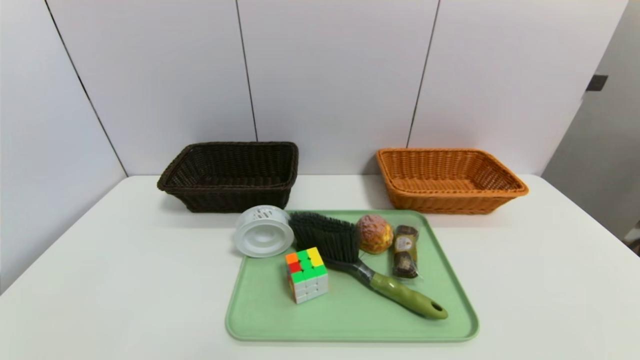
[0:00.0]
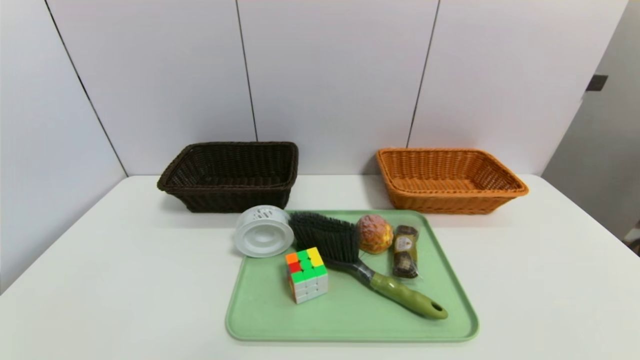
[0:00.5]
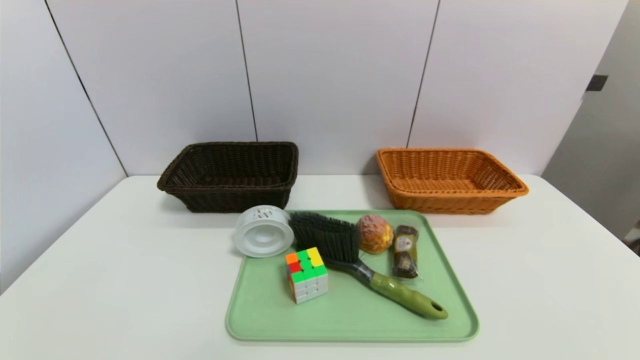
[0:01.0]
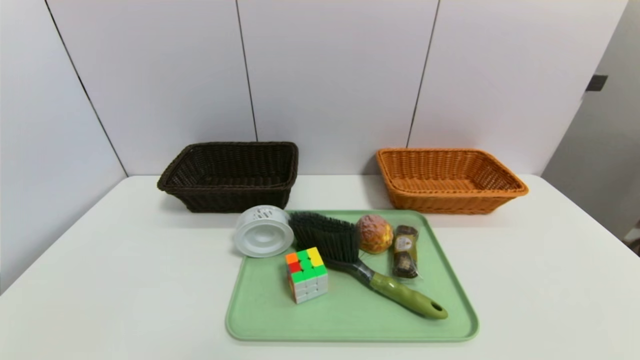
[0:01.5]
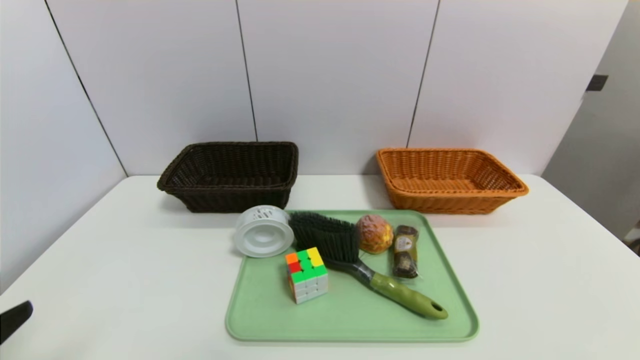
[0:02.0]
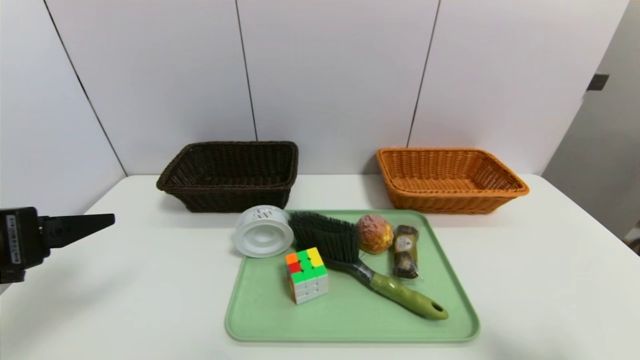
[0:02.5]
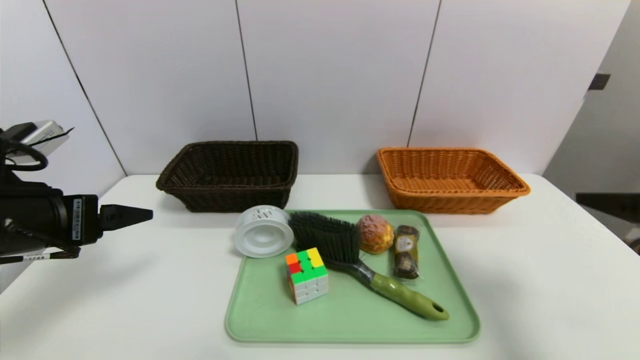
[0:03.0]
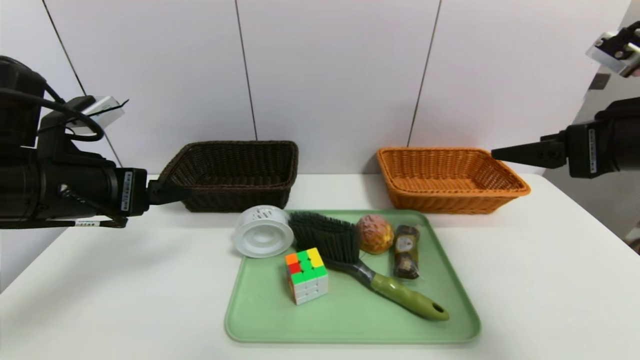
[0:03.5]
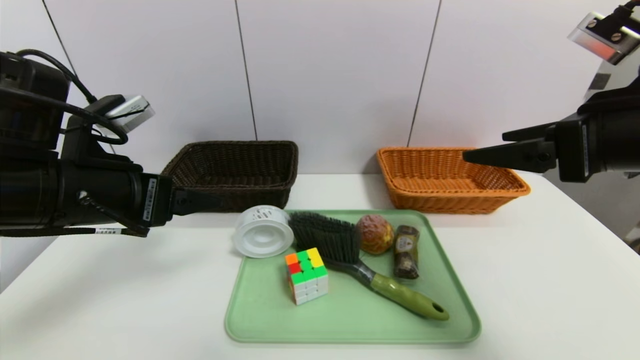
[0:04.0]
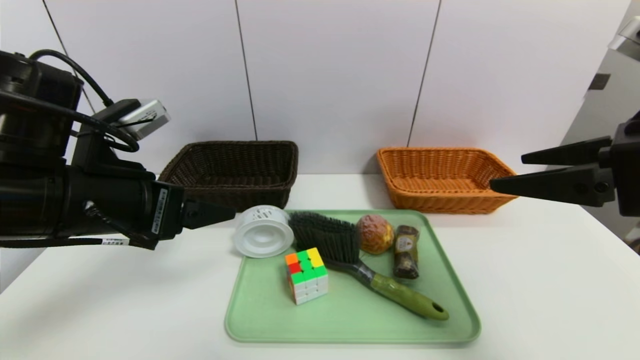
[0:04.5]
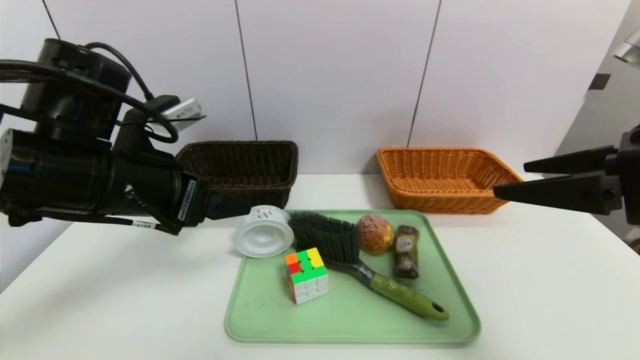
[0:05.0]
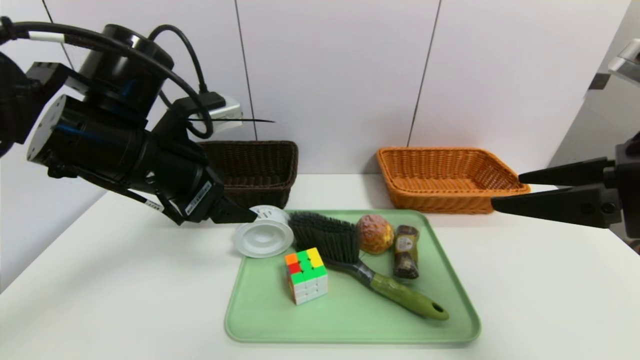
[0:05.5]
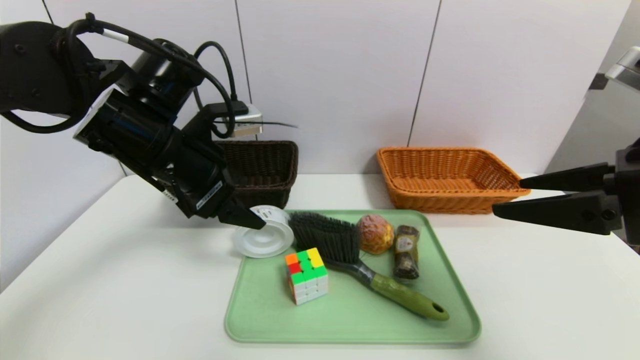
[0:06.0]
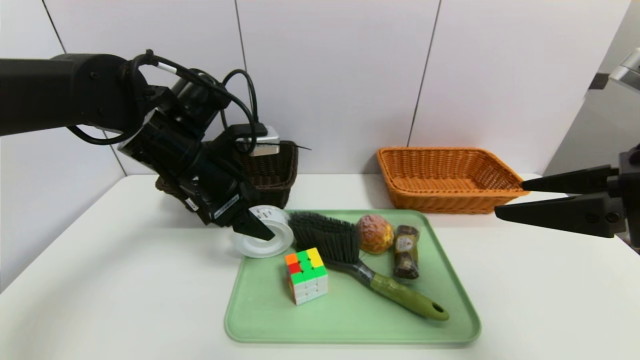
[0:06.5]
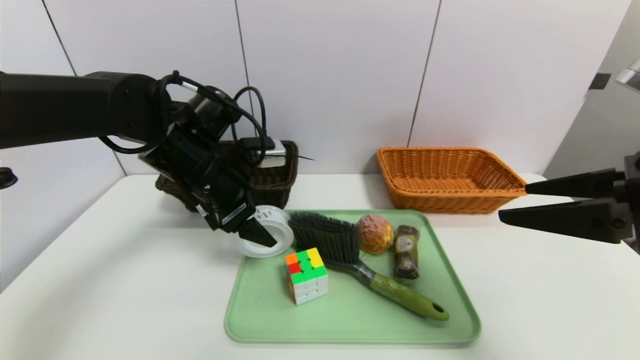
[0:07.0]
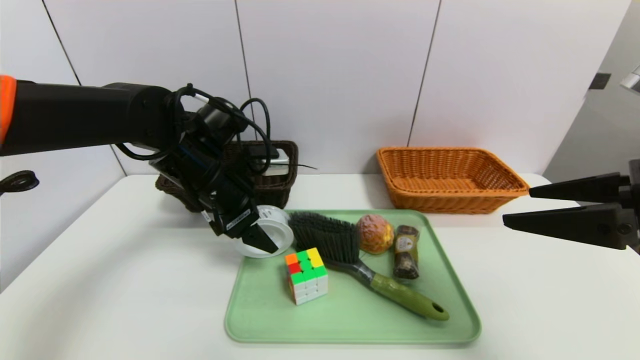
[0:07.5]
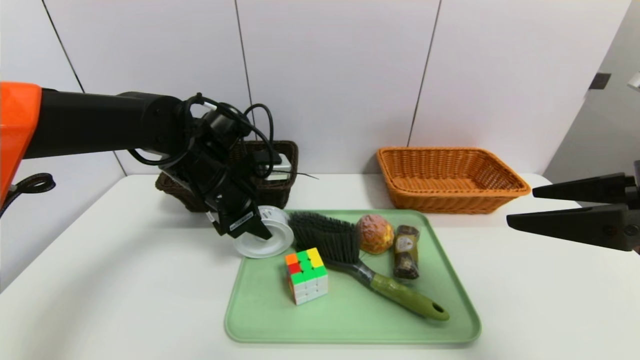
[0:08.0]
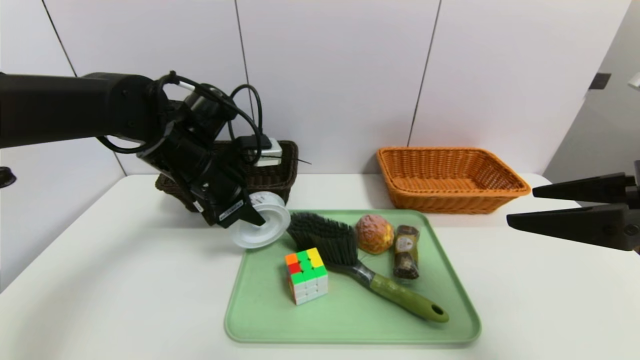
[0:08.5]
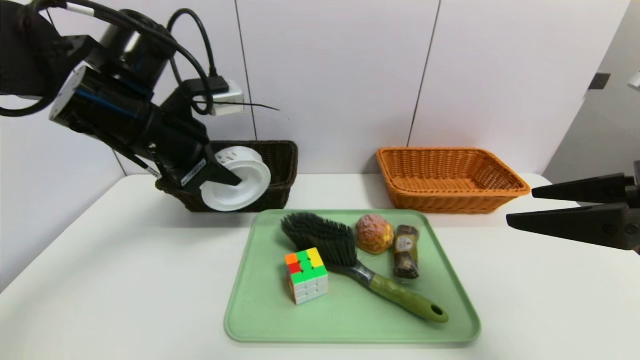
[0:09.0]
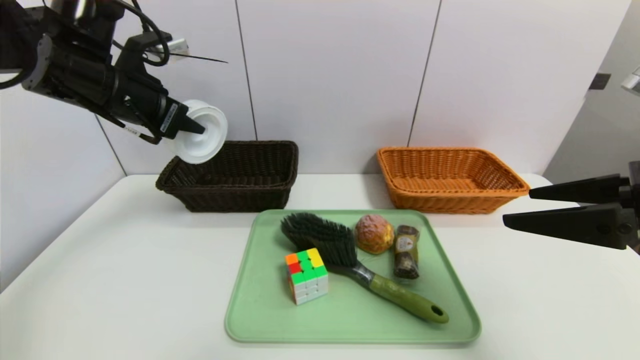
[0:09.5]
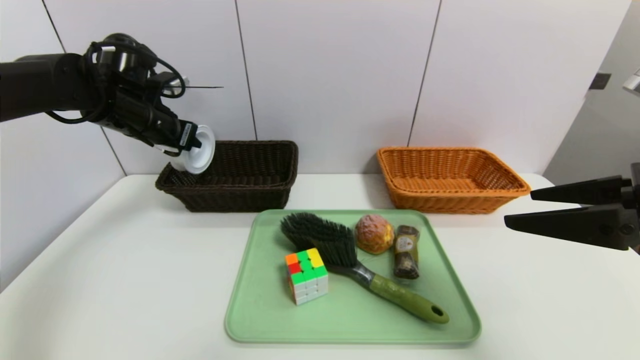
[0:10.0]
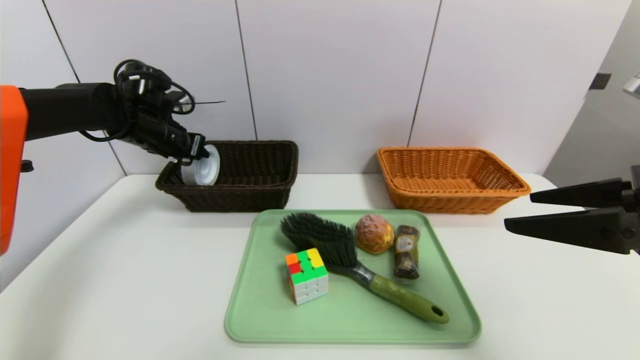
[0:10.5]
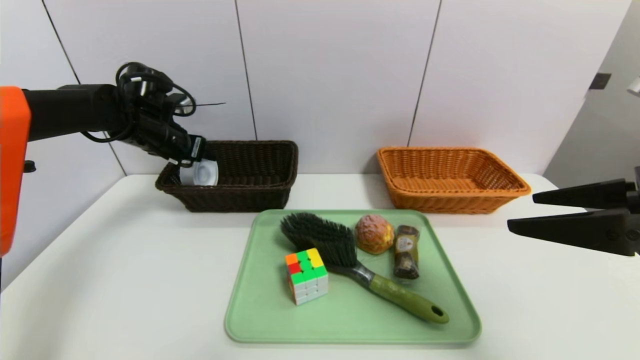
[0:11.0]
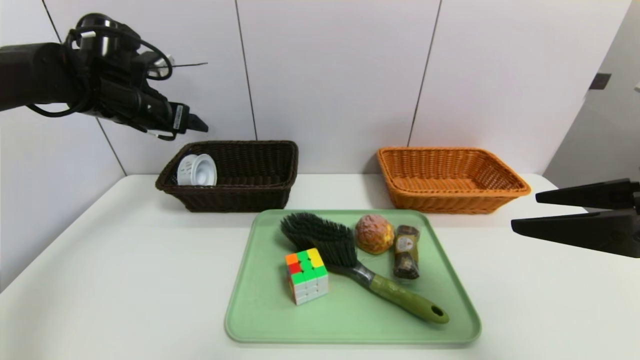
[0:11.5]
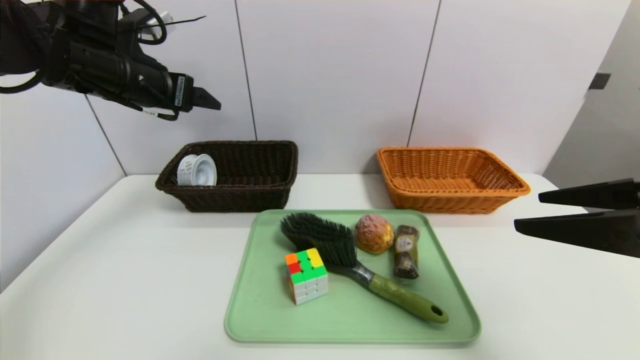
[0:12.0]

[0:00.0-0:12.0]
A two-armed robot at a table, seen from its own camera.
Task of the whole recording: place the food in the right basket with the right gripper, and place the non food items in the left basket with the left gripper.
Step, 0:00.0 to 0:11.0: Grasp the tape and put it in the left basket.
0:02.0 to 0:04.0: The left gripper heads forward, covering about 20 cm; the right gripper moves forward and upward, roughly 25 cm.
0:04.0 to 0:06.0: The left gripper heads forward and to the right, covering approximately 10 cm.
0:06.0 to 0:08.0: The left gripper is displaced downward and forward by roughly 10 cm, and closes up.
0:08.0 to 0:10.0: The left gripper heads to the left, upward and forward, covering approximately 15 cm.
0:10.0 to 0:12.0: The left gripper moves upward and backward, some 10 cm, and opens its fingers.

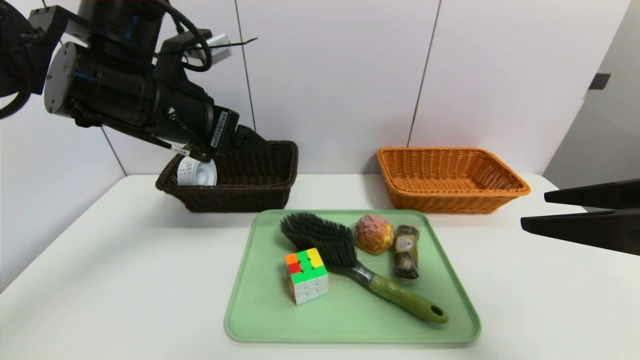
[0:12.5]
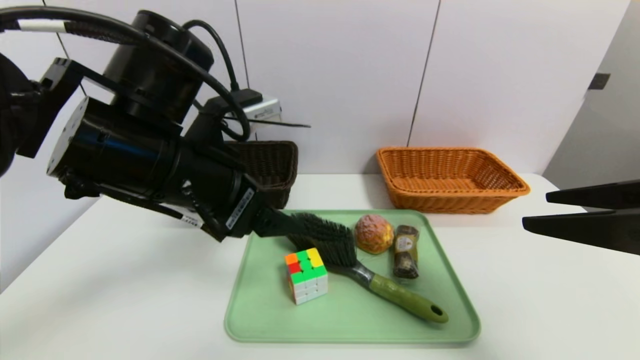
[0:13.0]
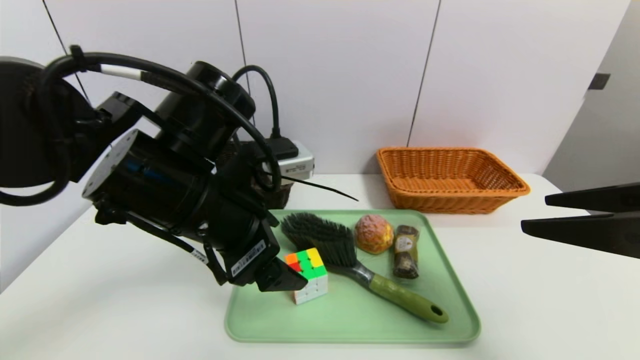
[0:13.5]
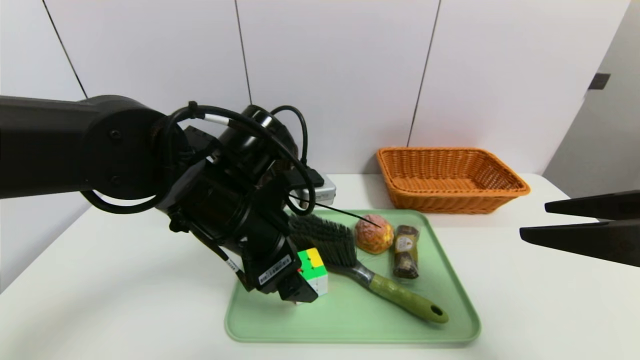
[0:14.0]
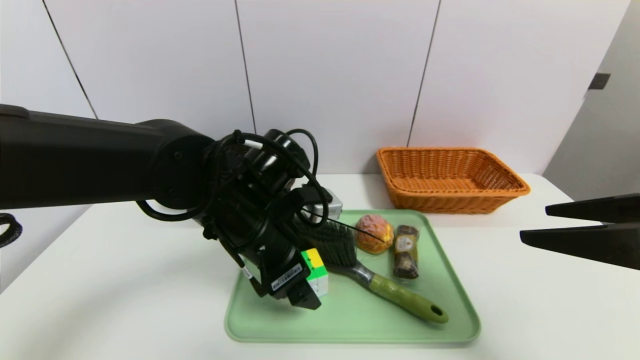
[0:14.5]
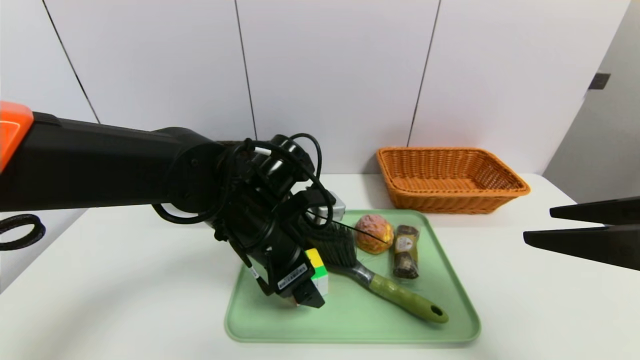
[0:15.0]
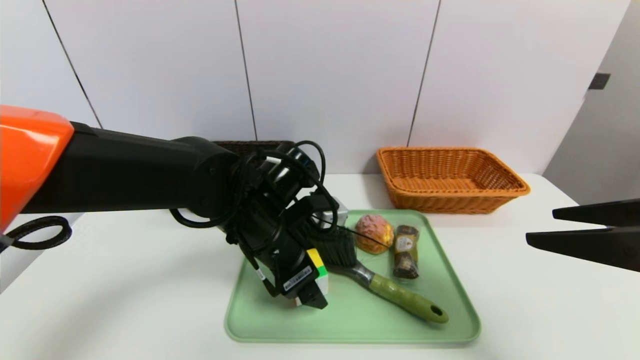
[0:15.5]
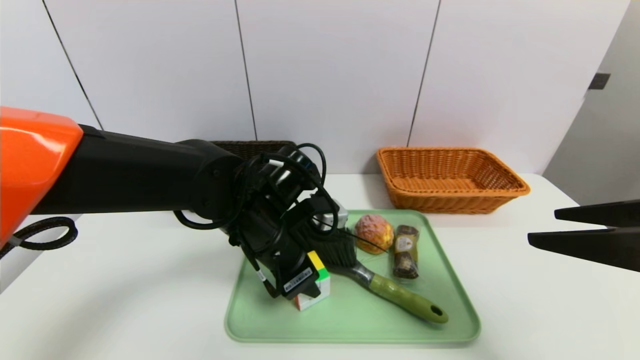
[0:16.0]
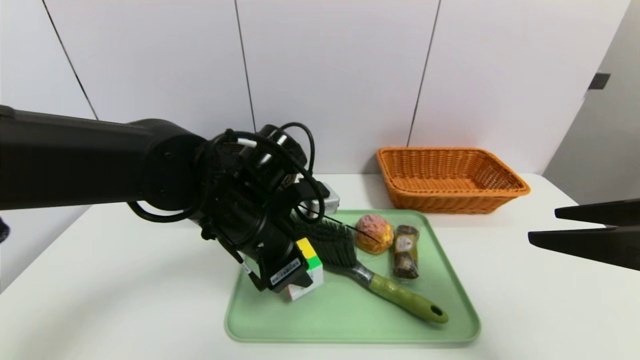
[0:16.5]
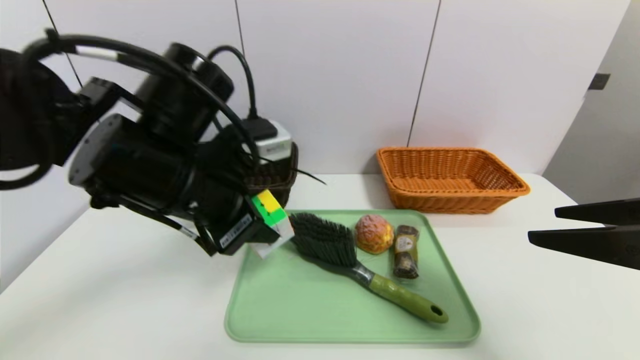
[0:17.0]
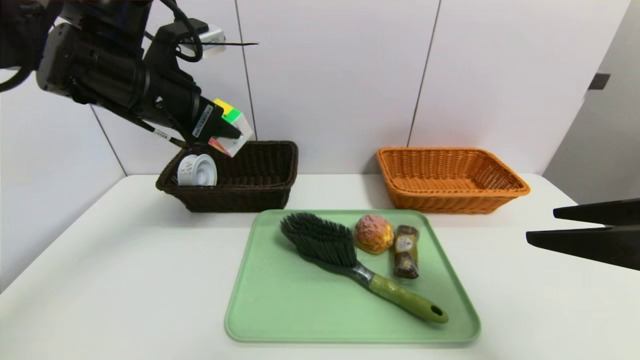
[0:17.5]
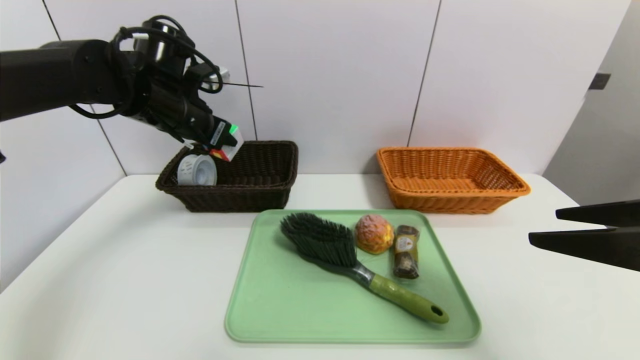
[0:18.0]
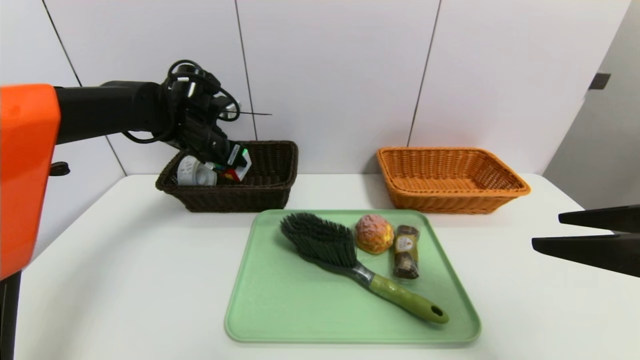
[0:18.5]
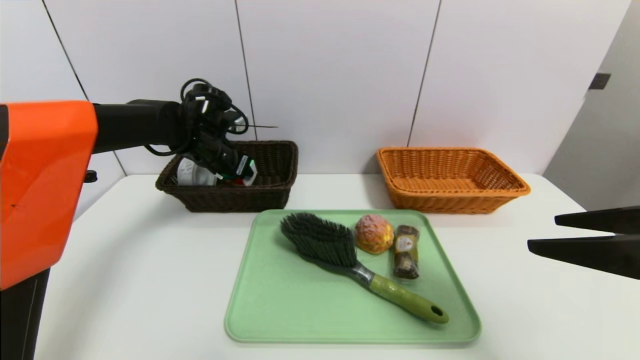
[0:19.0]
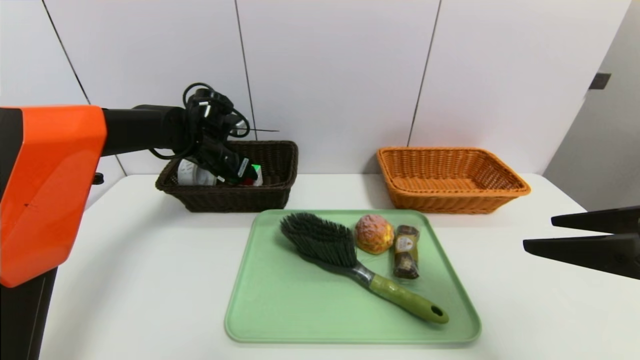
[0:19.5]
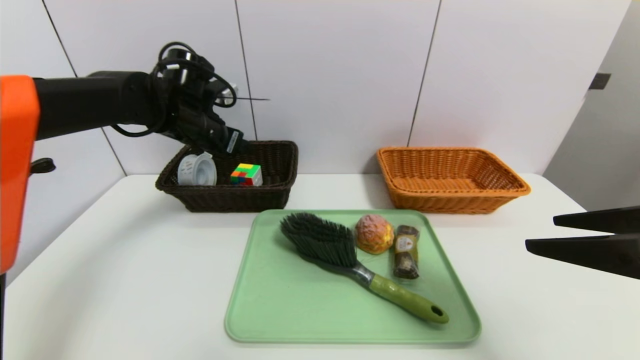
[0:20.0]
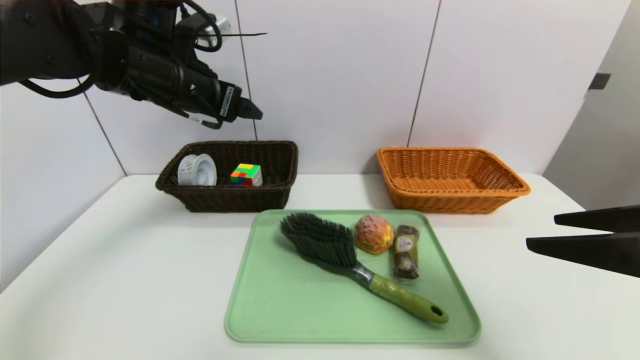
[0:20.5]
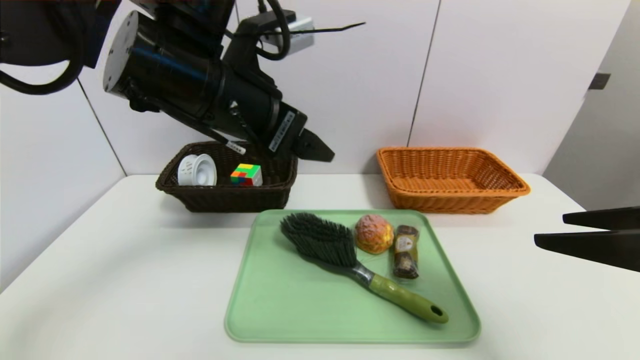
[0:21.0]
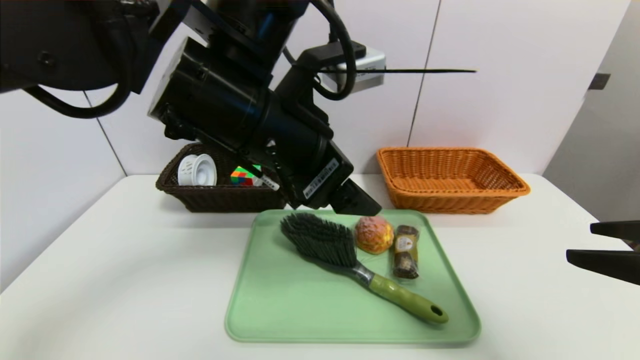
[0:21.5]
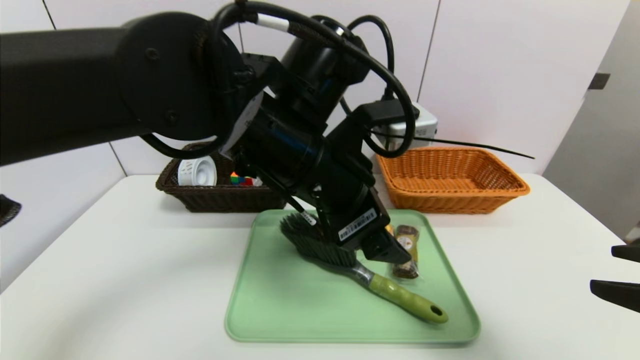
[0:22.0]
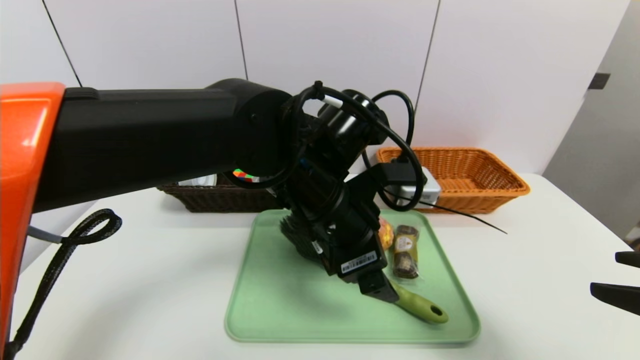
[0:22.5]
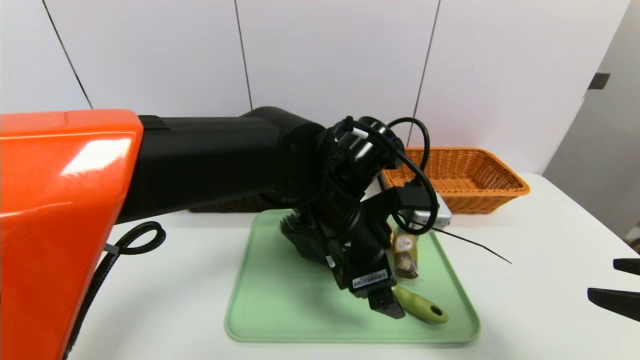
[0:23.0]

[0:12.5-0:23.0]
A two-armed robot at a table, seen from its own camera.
Task of the whole recording: place the food in the right basket with the right gripper, and place the non food items in the left basket with the left gripper.
Step, 0:12.5 to 0:19.5: Grasp the rubiks cube and put it in the left basket.
0:12.5 to 0:14.5: The left gripper goes roughly 15 cm downward and to the right.
0:14.5 to 0:16.5: The left gripper closes up.
0:16.5 to 0:19.0: The left gripper heads forward and to the left, covering some 20 cm.
0:19.0 to 0:21.0: The left gripper heads backward, upward and to the right, covering roughly 25 cm, and opens.
0:21.0 to 0:23.0: The right gripper ends up approximately 5 cm from where it was; the left gripper is displaced downward and to the right by some 20 cm.
